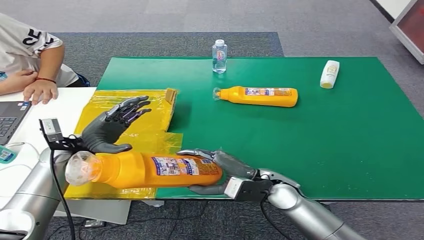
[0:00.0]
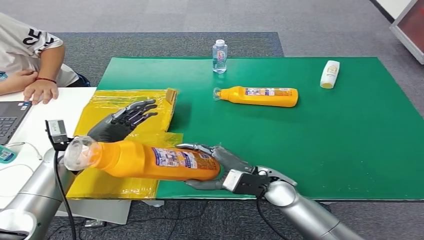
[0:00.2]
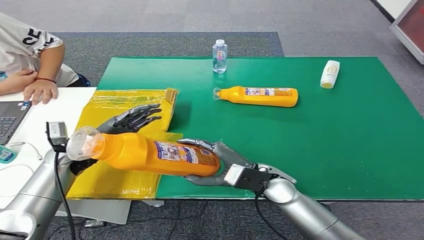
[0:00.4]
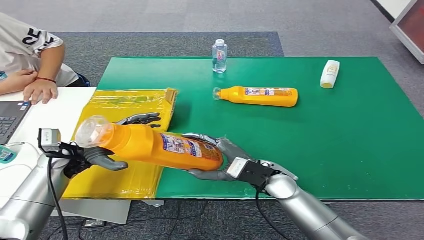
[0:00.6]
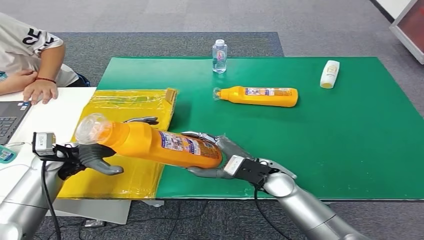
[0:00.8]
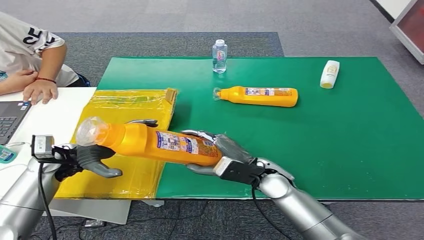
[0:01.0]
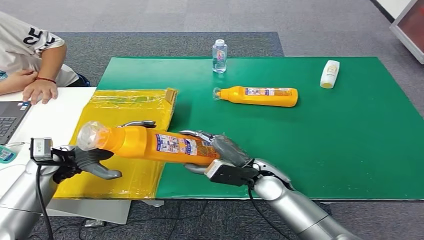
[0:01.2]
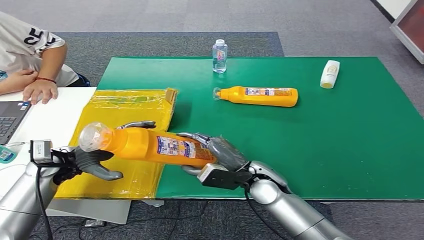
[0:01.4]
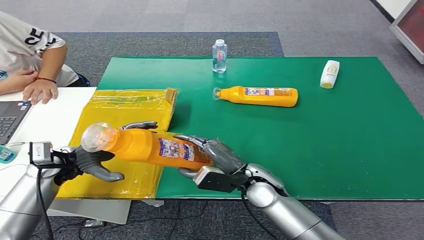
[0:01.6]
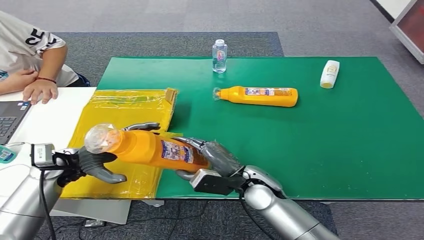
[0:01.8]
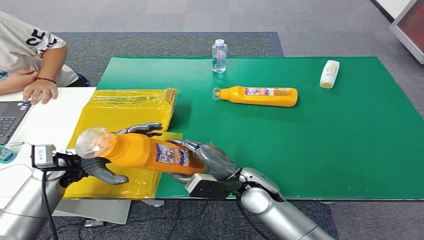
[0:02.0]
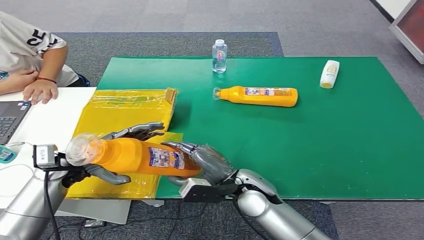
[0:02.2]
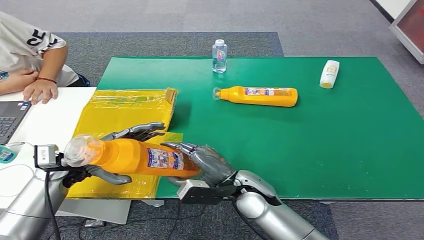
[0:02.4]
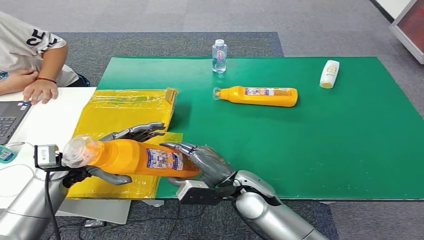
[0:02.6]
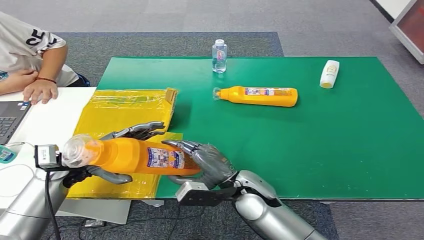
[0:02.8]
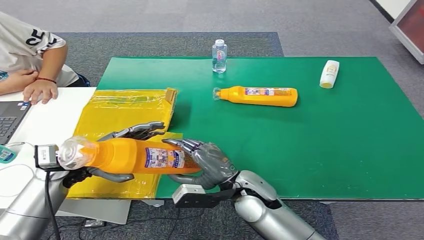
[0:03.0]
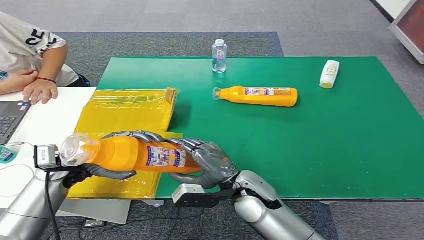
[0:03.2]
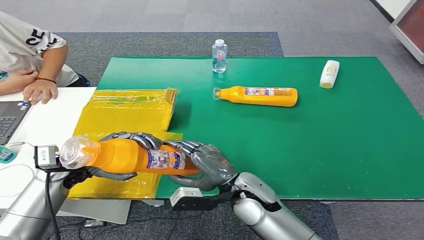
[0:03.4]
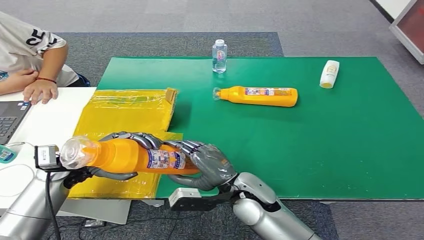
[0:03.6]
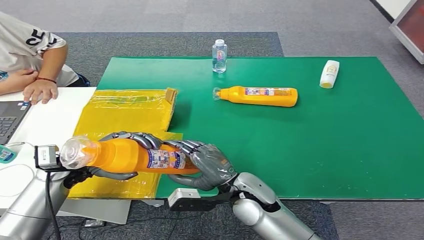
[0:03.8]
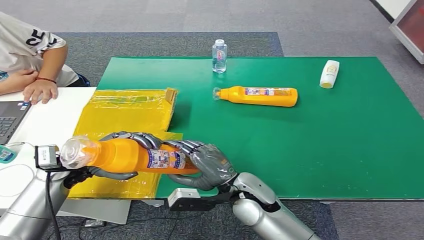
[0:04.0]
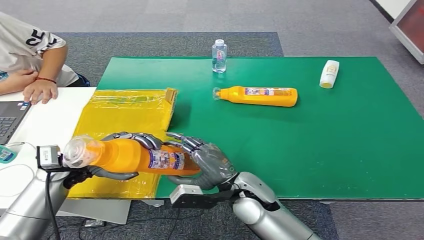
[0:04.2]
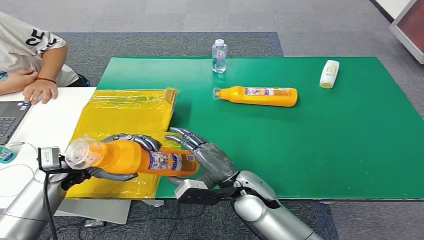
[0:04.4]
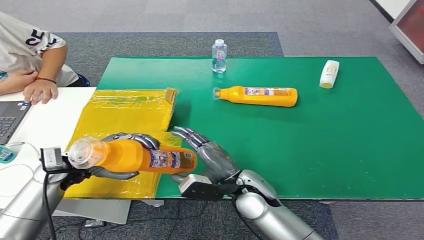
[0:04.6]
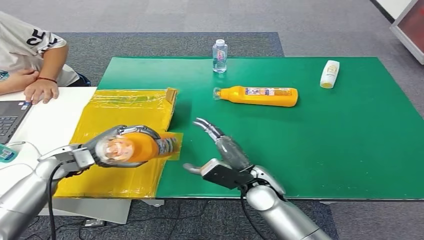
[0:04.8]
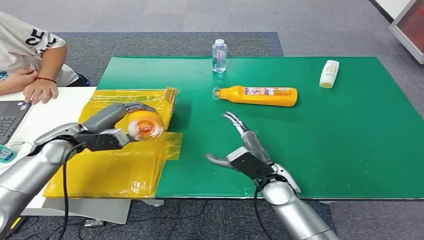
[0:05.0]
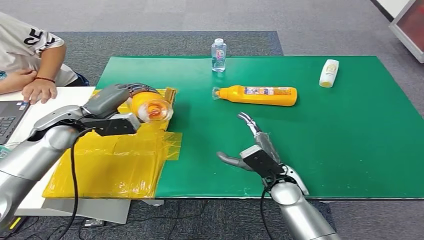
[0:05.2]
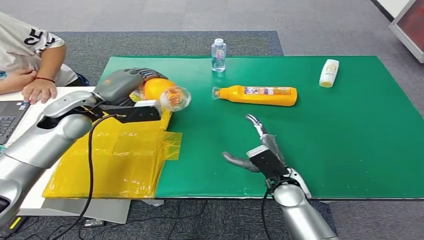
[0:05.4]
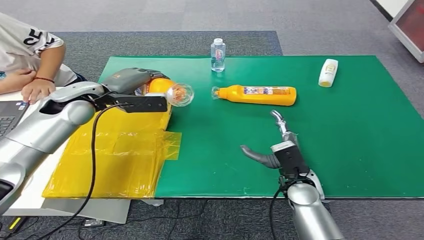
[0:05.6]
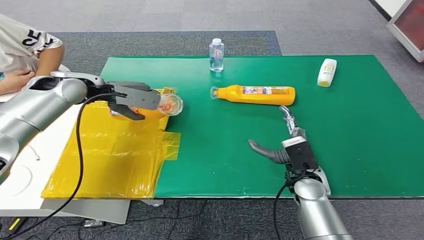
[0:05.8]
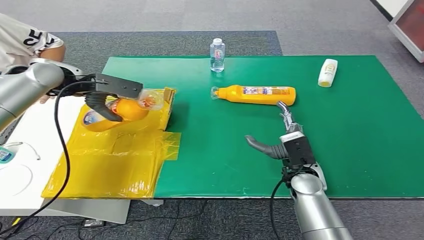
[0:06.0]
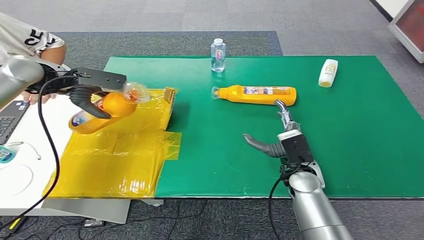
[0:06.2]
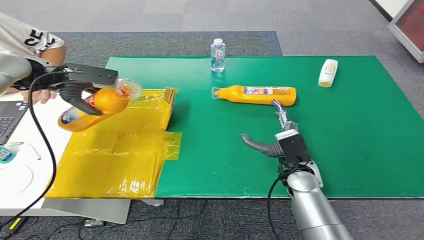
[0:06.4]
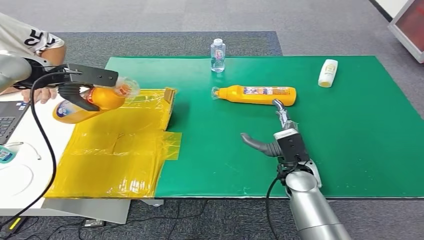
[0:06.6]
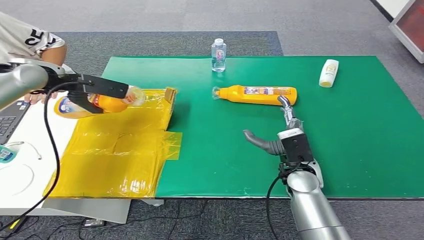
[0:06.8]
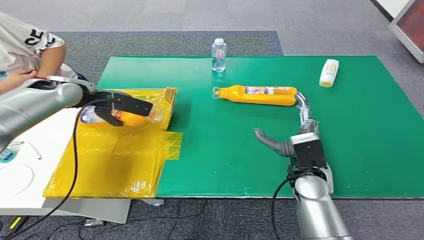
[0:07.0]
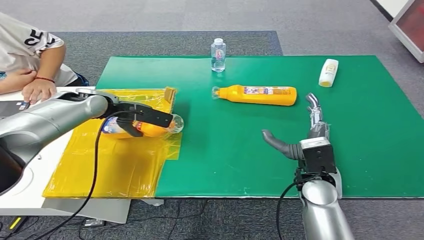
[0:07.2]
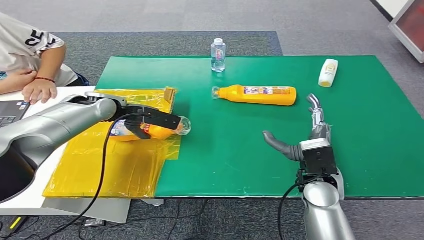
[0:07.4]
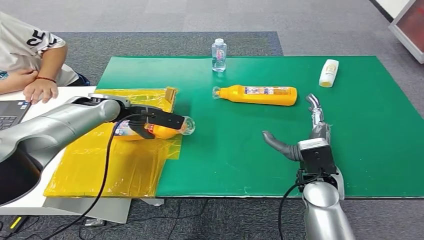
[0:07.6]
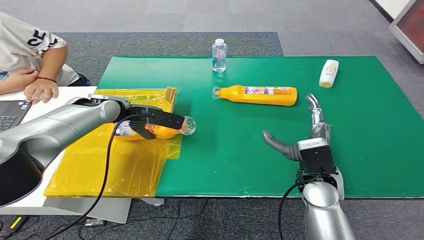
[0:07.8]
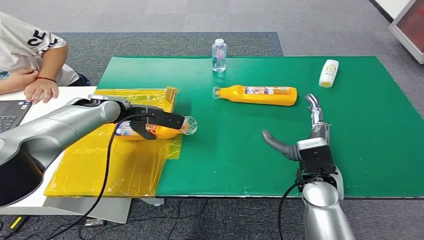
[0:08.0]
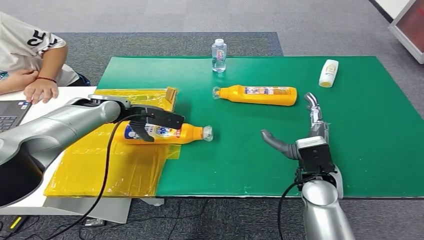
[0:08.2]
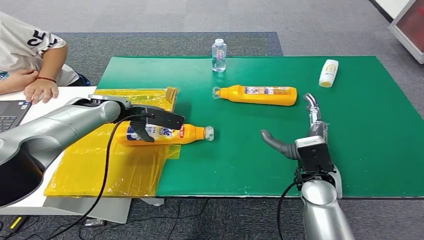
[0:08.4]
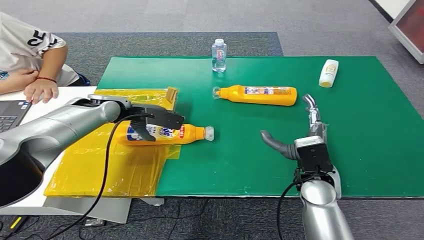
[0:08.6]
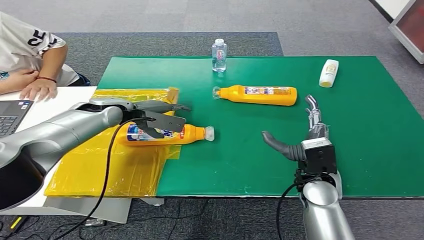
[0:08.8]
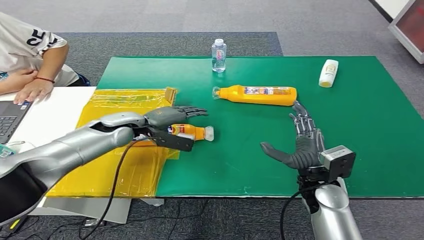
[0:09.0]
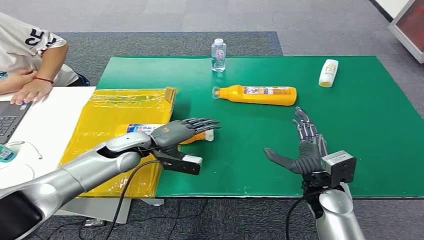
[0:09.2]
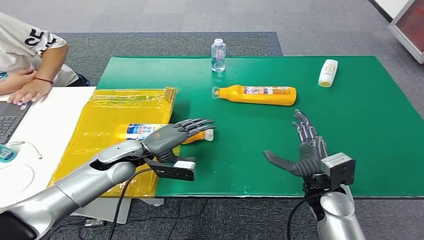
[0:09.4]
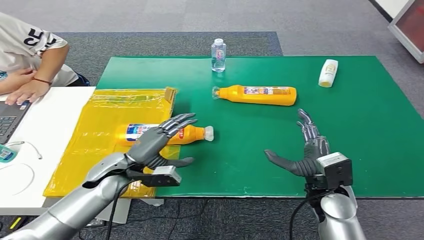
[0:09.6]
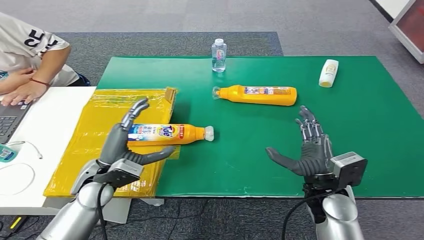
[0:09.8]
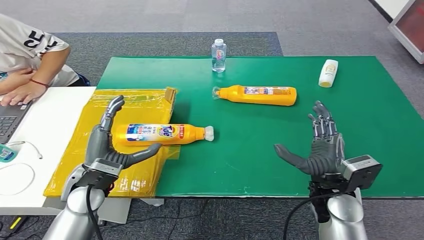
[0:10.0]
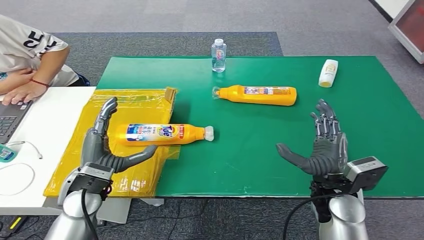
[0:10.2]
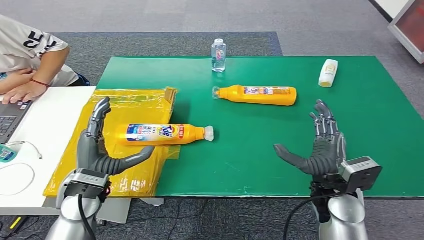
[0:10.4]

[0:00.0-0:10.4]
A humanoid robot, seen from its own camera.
Step, 0:00.0 to 0:10.4: Turn the bottle to the front side.
0:00.0 to 0:01.4: The hands stay close to where they were, moving slightly.
0:01.4 to 0:03.0: The hands stay close to where they were, moving slightly.
0:03.0 to 0:04.4: Both hands stay about where they are.
